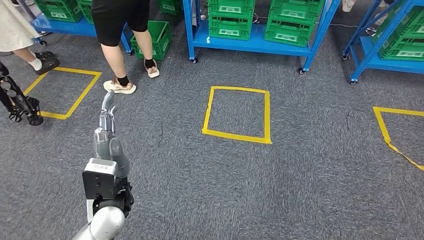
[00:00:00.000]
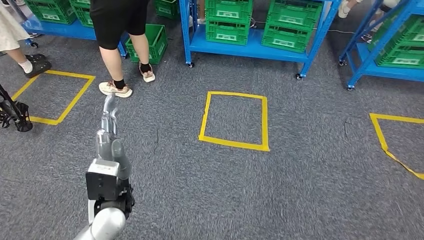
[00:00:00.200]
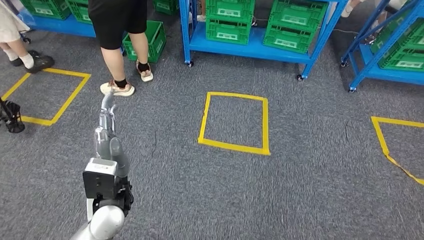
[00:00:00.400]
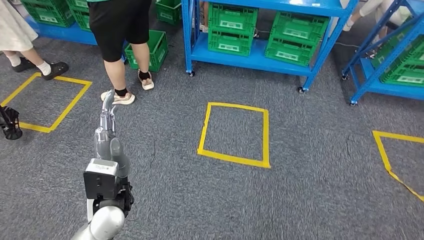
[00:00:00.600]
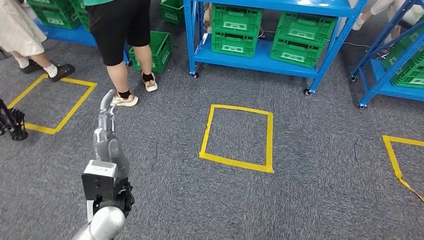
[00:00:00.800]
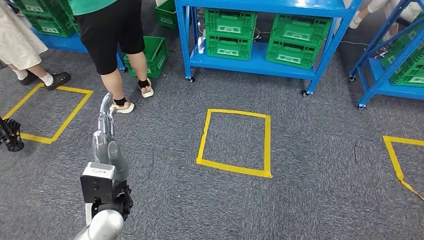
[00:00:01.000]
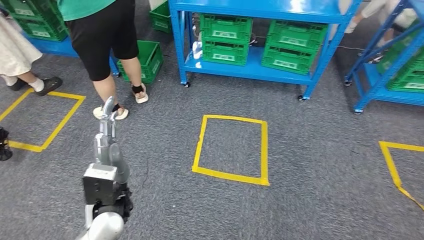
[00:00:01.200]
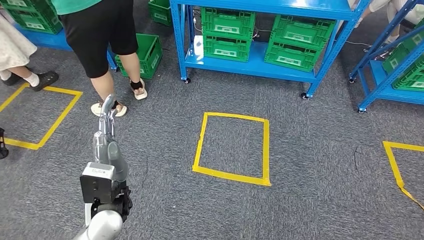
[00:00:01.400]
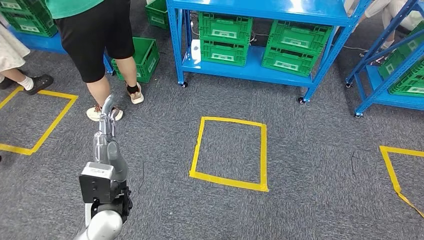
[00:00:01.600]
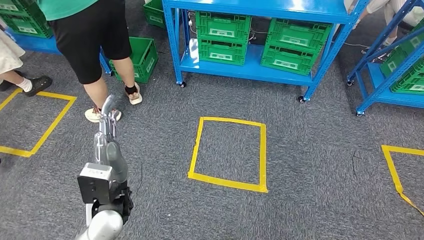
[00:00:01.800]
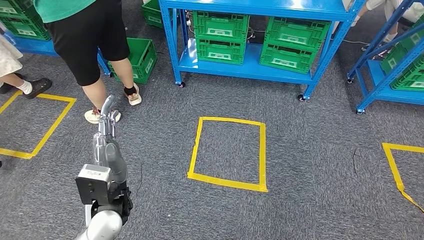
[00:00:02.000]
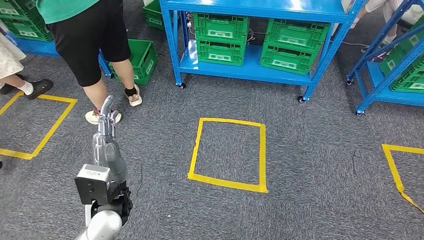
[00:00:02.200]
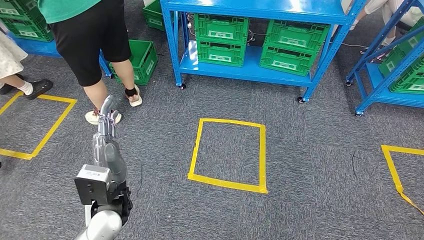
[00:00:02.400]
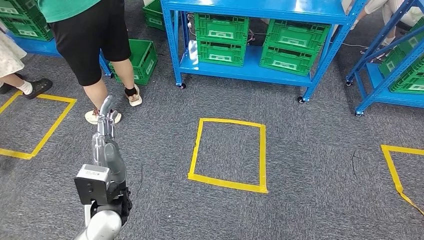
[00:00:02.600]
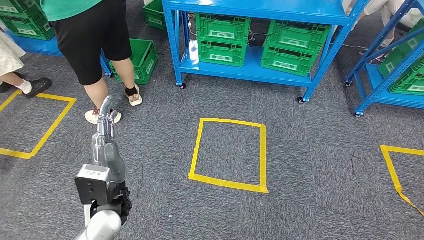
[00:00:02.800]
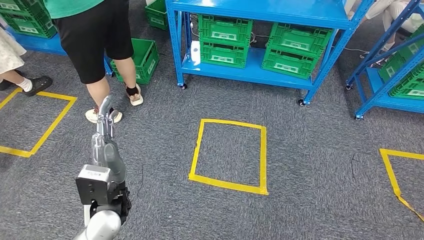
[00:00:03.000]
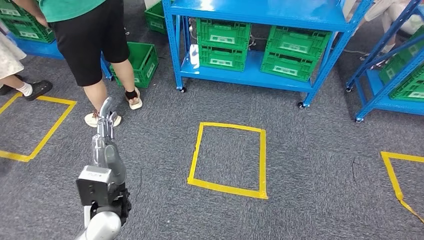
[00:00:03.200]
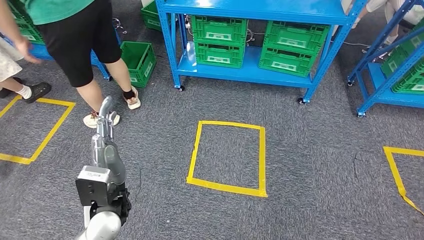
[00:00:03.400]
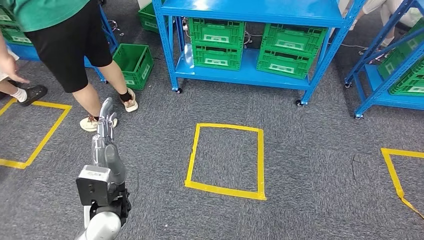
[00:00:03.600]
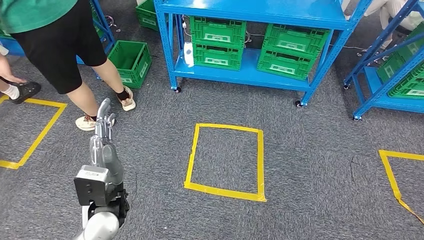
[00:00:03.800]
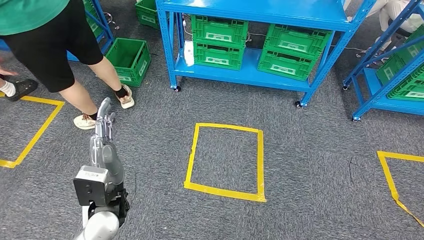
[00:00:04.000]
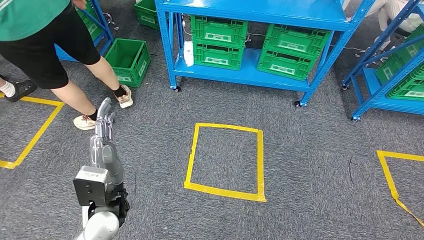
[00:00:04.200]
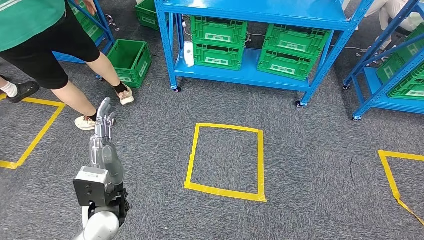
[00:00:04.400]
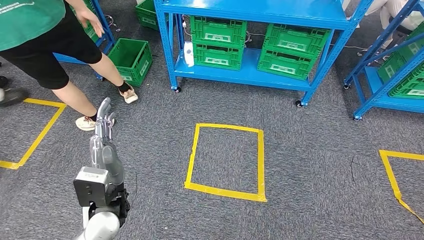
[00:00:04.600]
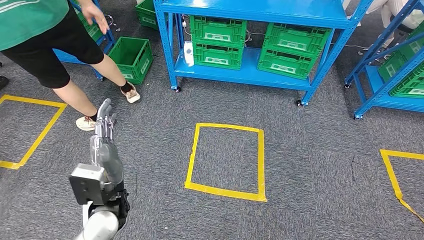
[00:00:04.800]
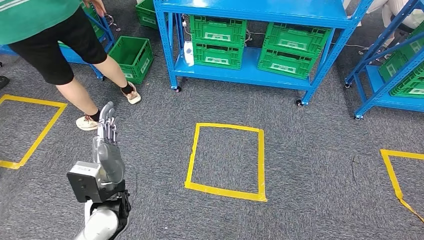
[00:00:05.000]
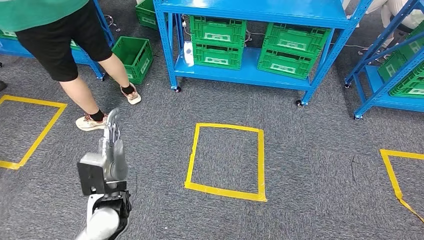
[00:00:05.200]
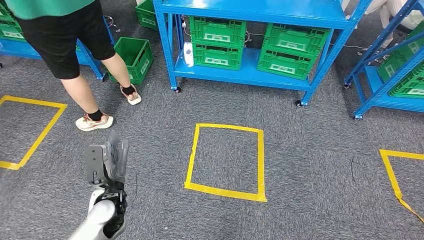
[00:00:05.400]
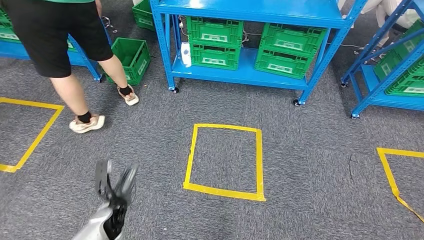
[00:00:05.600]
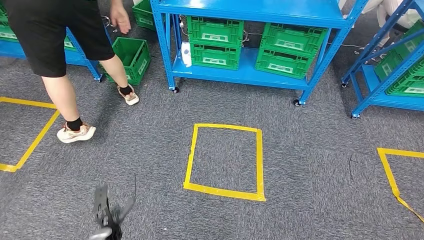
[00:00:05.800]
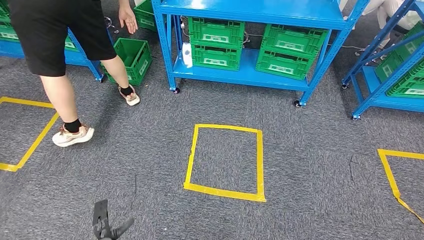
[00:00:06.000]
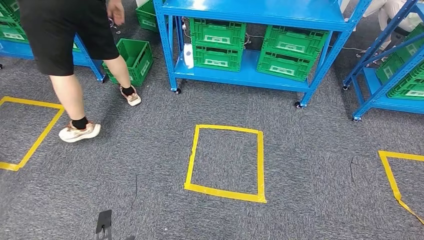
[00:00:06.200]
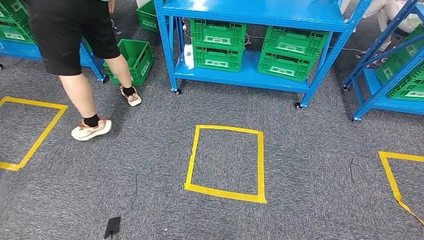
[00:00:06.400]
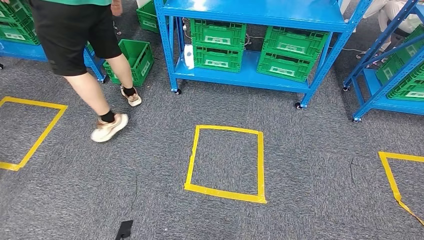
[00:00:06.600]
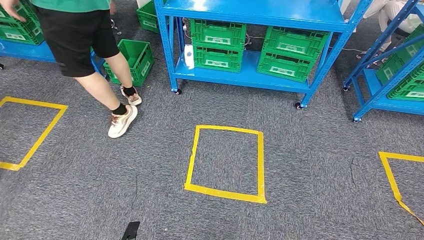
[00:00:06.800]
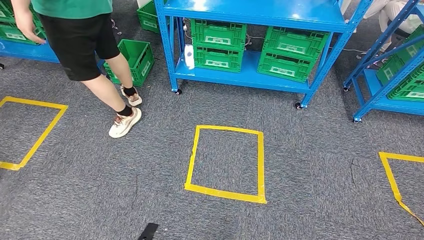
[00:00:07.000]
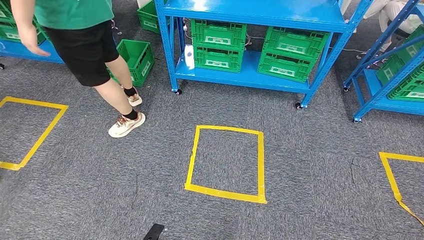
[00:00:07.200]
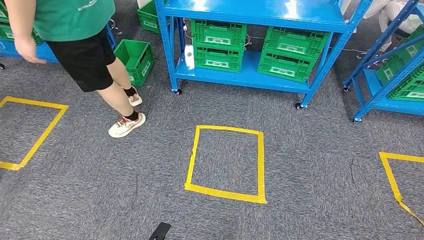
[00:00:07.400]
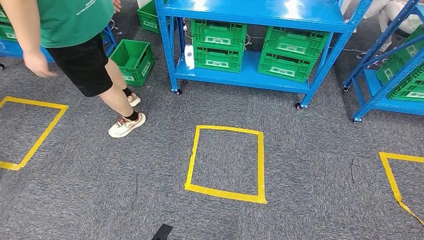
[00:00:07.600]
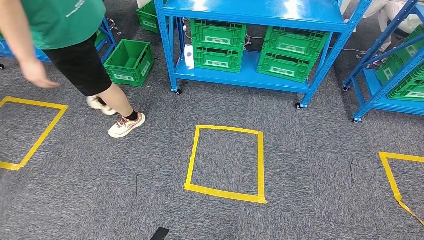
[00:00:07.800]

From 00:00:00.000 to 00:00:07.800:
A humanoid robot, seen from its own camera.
Step, from 00:00:00.000 to 00:00:07.800: Return to the initial position at the workbench.
From 00:00:04.600 to 00:00:06.200: The left hand goes about 30 cm downward.
From 00:00:06.200 to 00:00:07.800: The left hand goes some 10 cm to the right.
